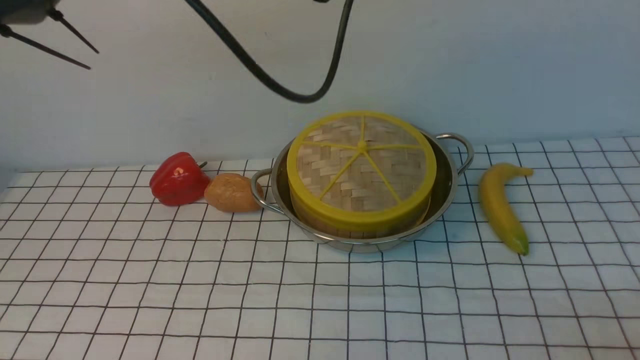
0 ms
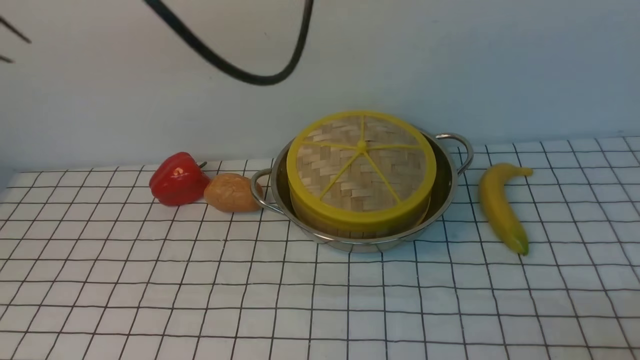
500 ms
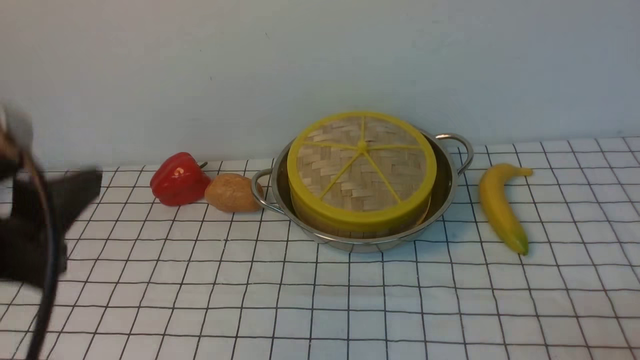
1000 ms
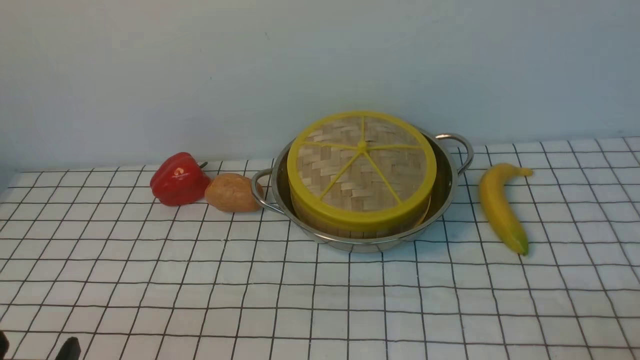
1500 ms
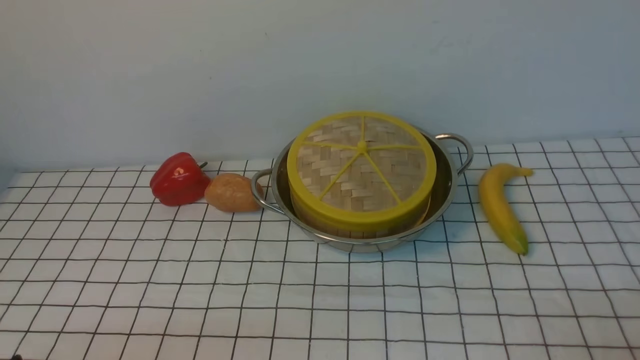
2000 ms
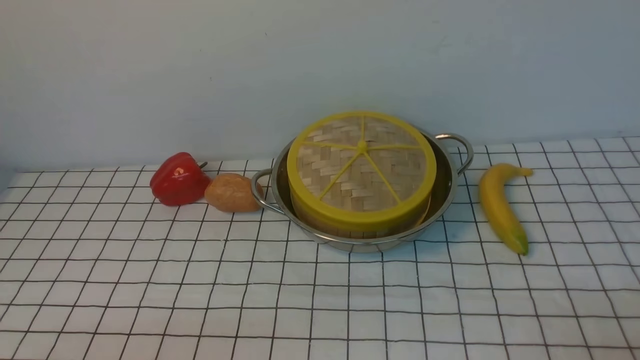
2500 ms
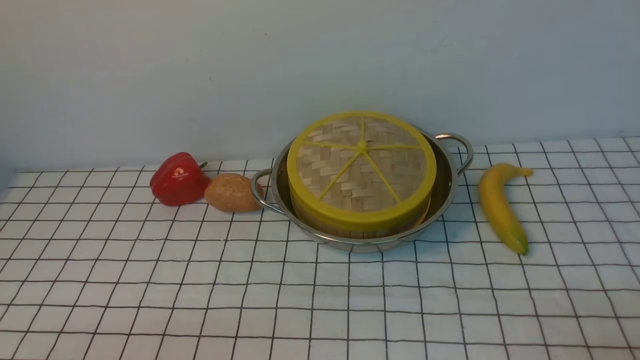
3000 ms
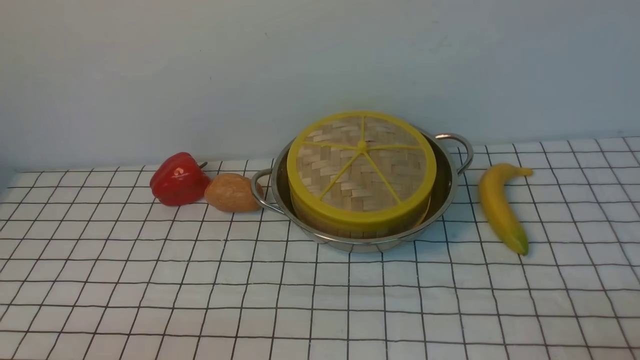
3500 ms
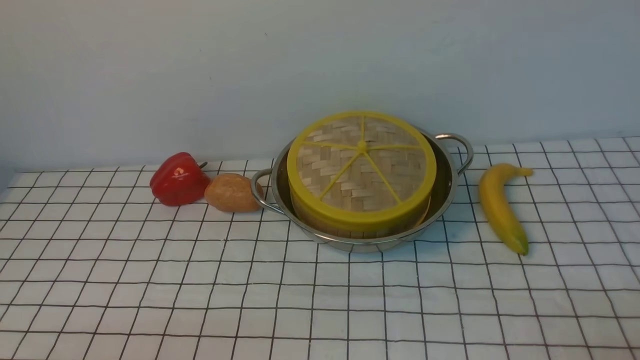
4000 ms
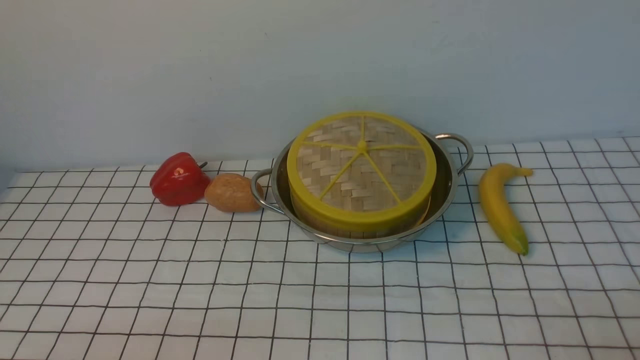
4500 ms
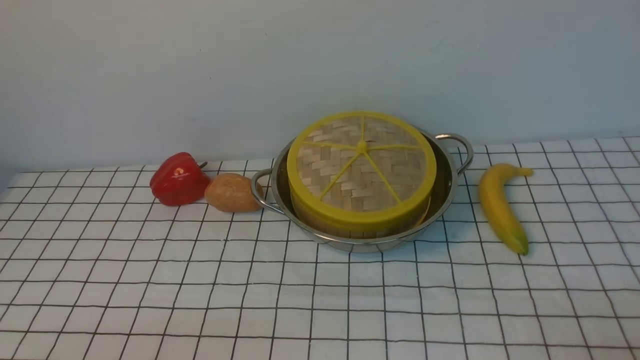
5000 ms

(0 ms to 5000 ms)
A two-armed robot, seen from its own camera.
Task of the whole recording: place the steamer in the pot on the white tablecloth, and put the lid on the steamer.
0 ms - 2500 ms: The left gripper travels backward, downward and to the left by roughly 50 cm.
2500 ms - 5000 ms: Neither gripper changes place.
